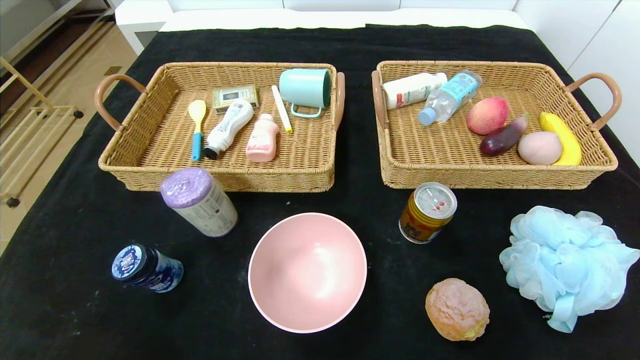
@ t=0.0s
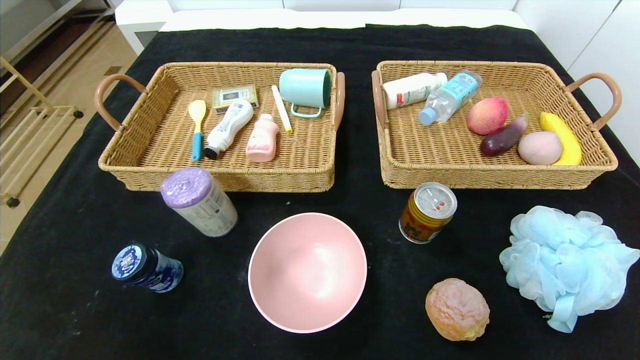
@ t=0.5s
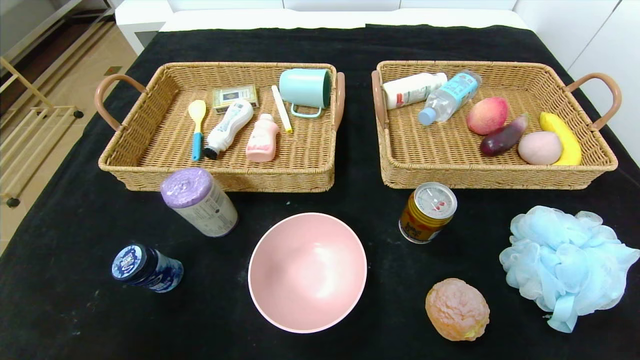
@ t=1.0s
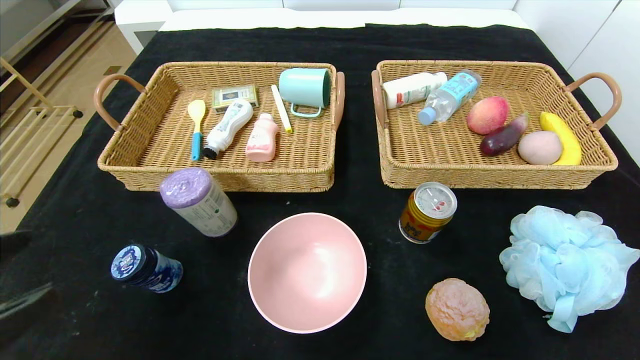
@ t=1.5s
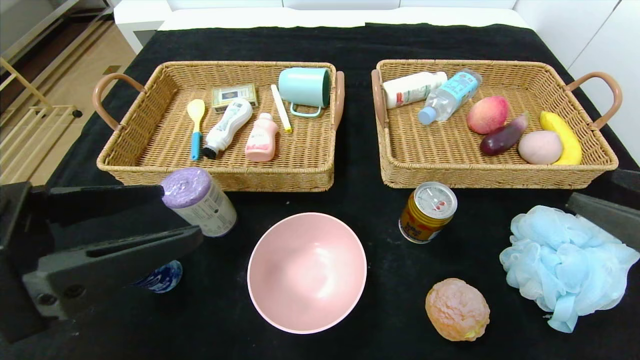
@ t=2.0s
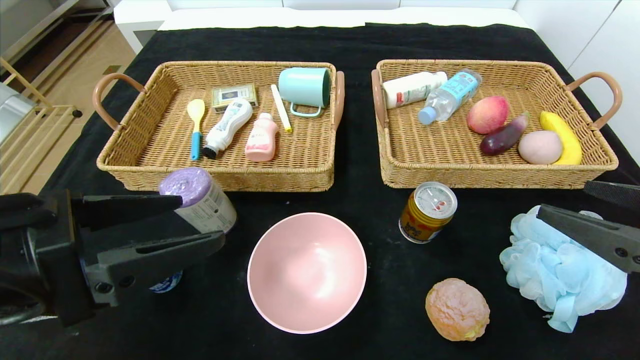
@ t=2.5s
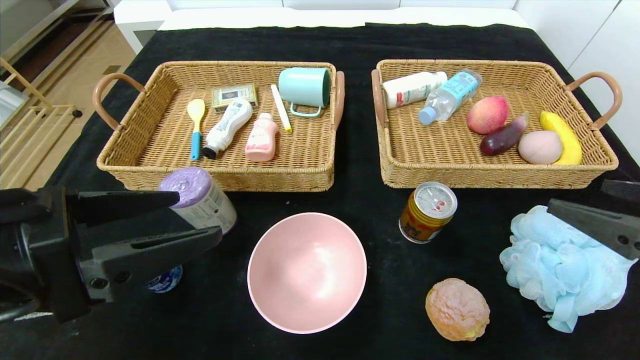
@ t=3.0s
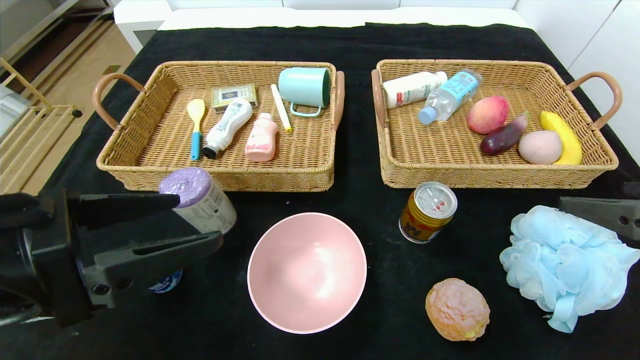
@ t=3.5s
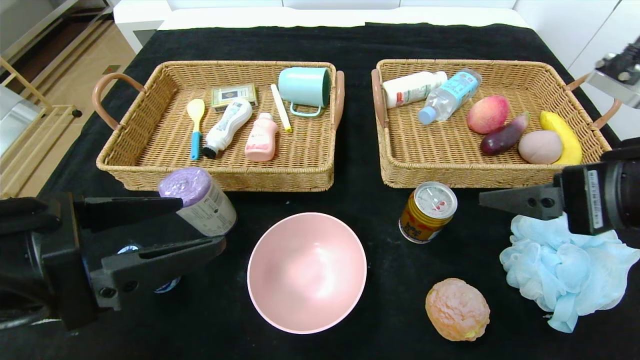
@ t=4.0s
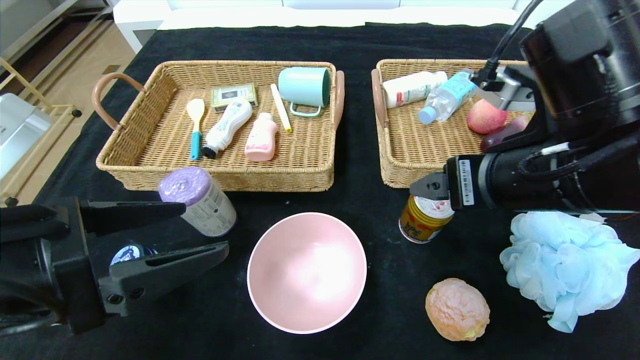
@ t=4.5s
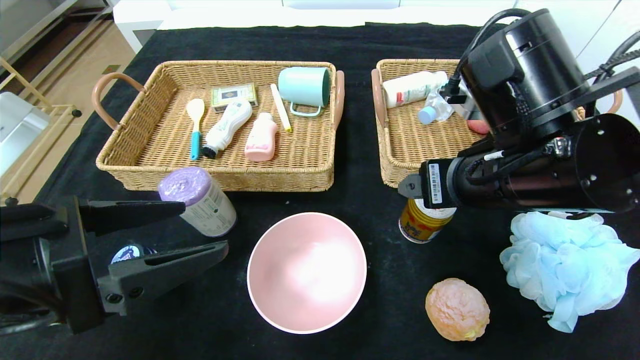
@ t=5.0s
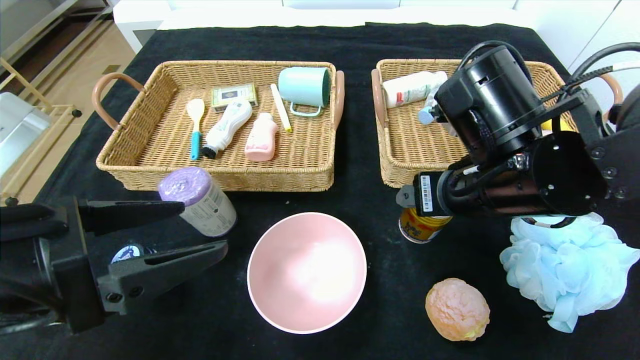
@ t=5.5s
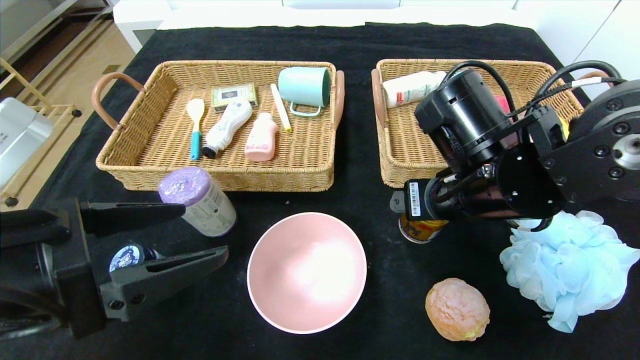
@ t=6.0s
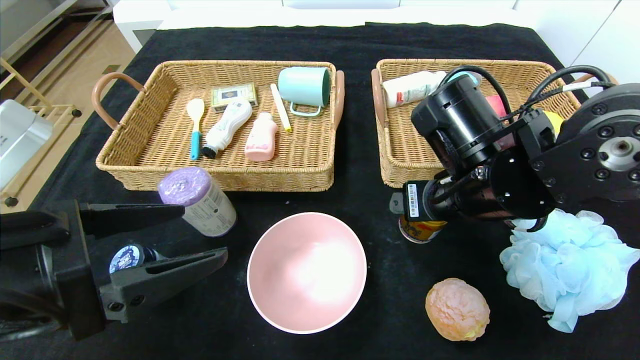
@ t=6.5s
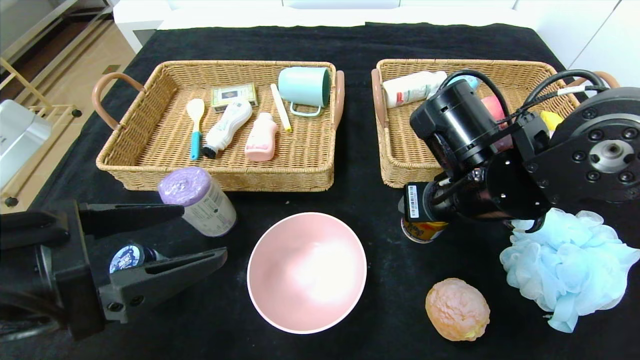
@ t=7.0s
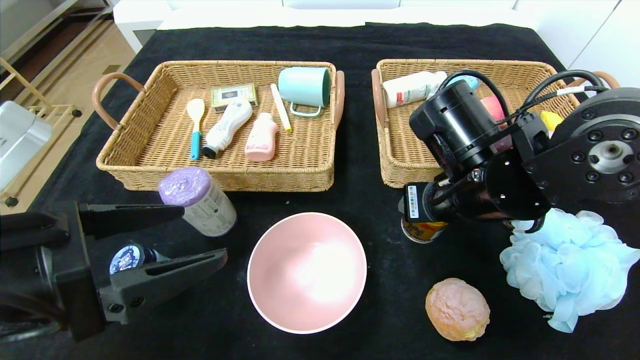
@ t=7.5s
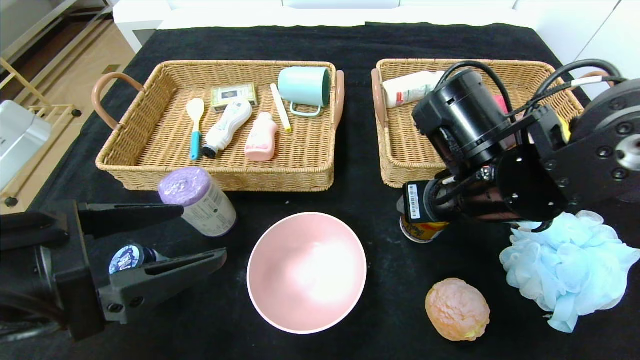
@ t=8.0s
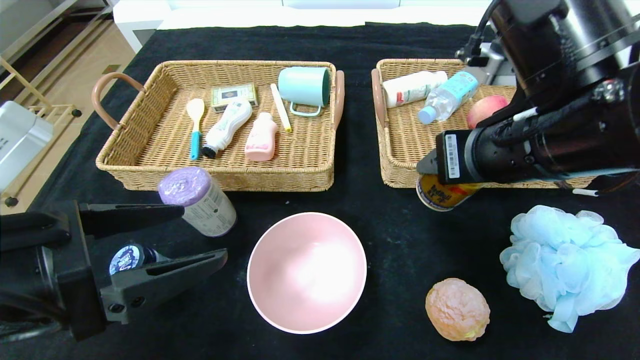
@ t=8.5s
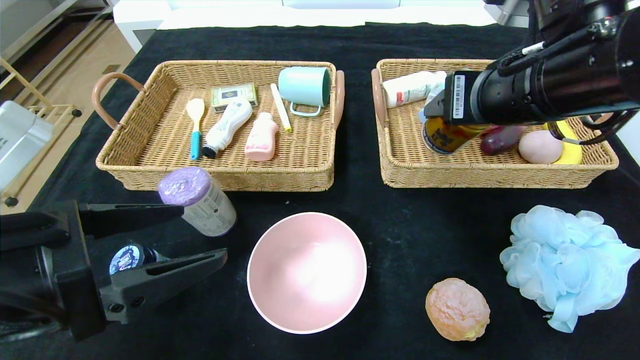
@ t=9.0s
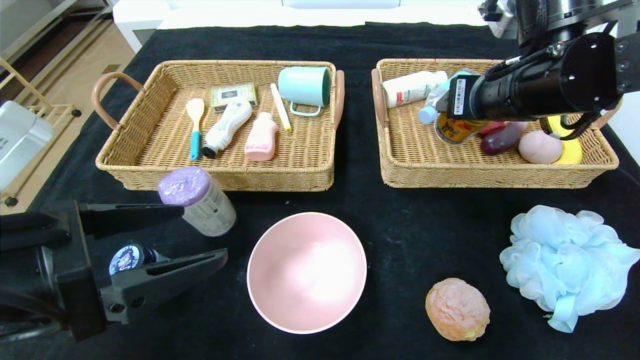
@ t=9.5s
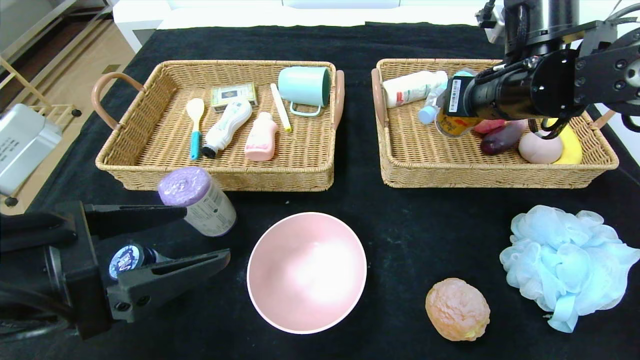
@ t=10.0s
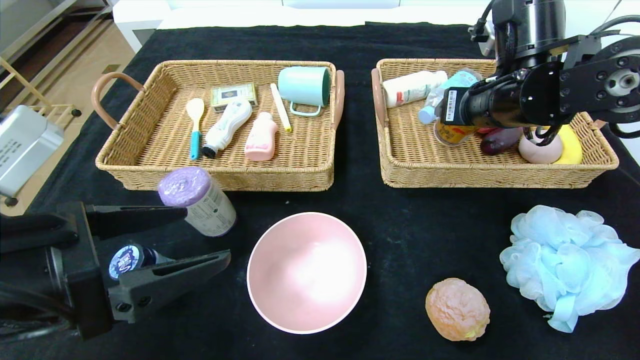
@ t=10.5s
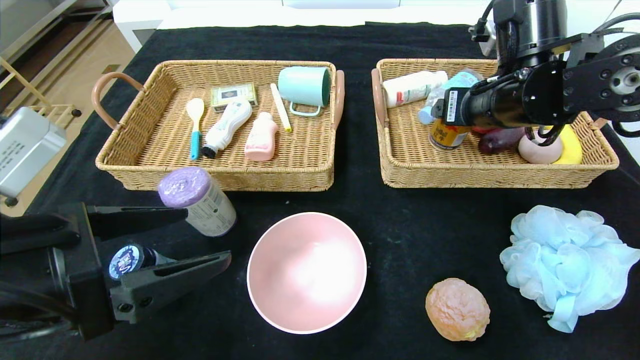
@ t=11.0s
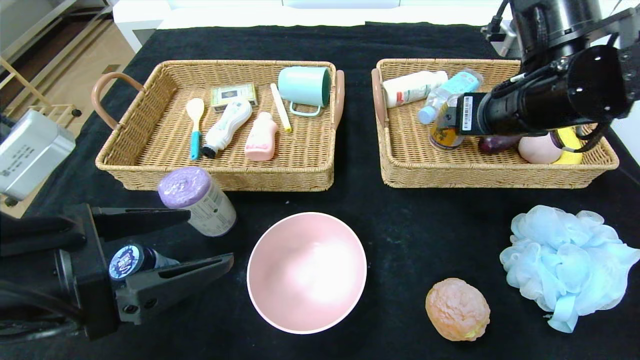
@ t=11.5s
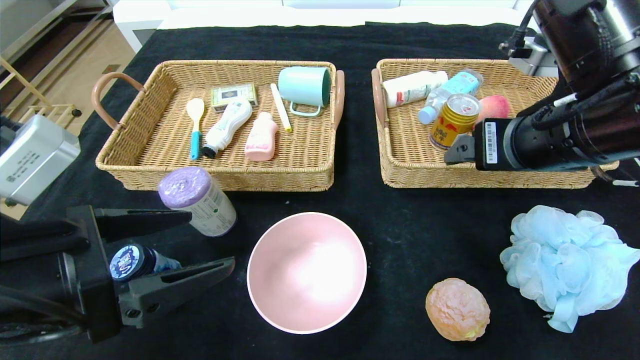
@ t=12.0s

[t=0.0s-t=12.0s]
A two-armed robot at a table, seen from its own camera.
Step, t=0.0s to t=10.5s: Grasp the Red Bull and put it in the right basket.
t=0.0s to t=2.0s: Both grippers travel together upward and forward, some 25 cm.
t=2.0s to t=4.0s: The right gripper is displaced to the left and forward by about 10 cm.
t=4.0s to t=6.0s: The right gripper is displaced to the left, forward and downward by approximately 15 cm.
t=6.0s to t=8.0s: The right gripper closes up.
t=8.0s to t=10.0s: The right gripper travels forward, upward and to the right by some 15 cm.
t=10.0s to t=12.0s: The right gripper moves backward, about 10 cm, and opens up.

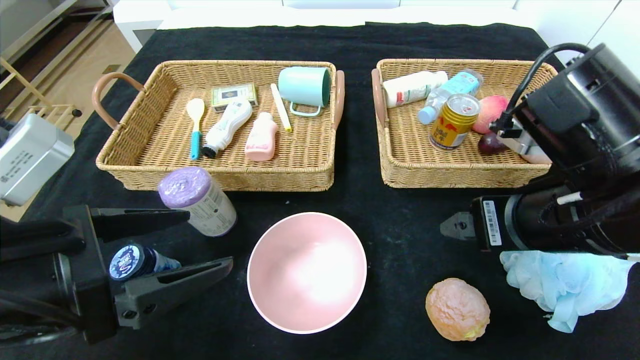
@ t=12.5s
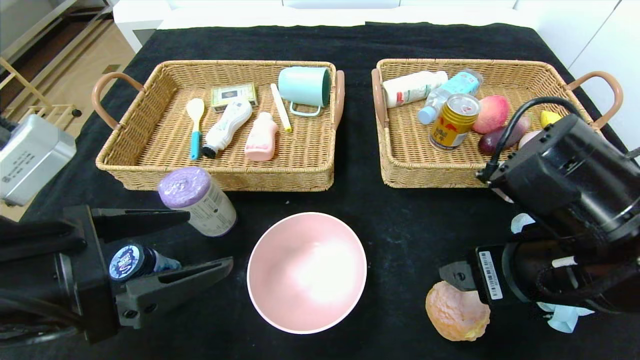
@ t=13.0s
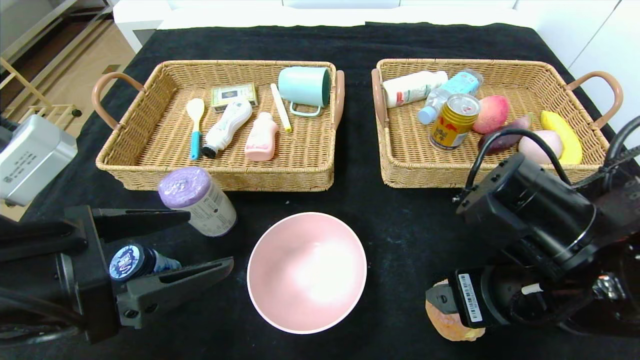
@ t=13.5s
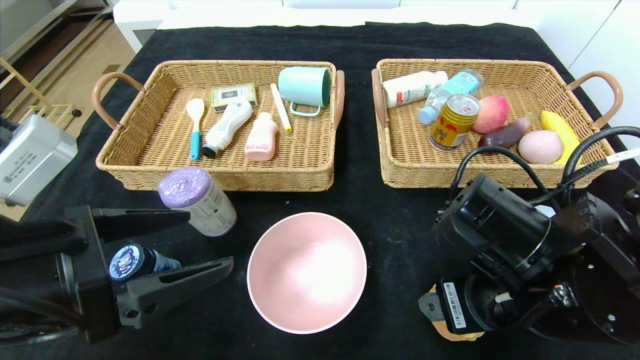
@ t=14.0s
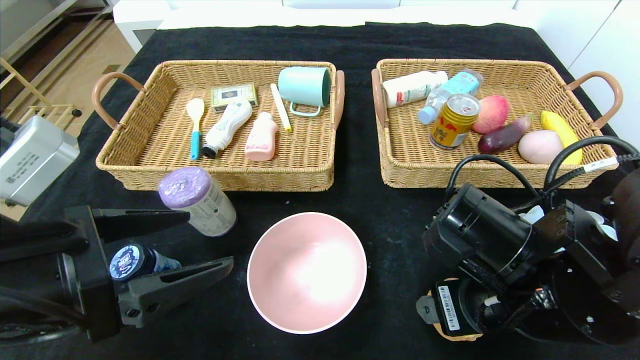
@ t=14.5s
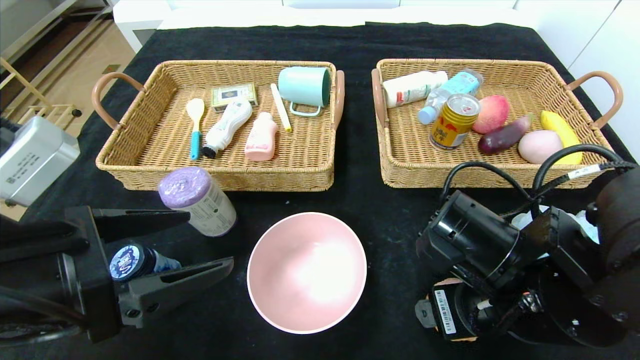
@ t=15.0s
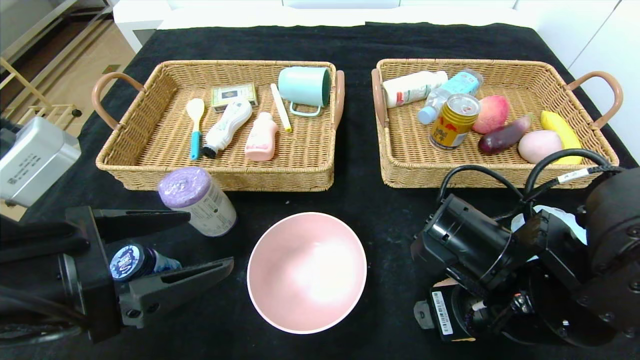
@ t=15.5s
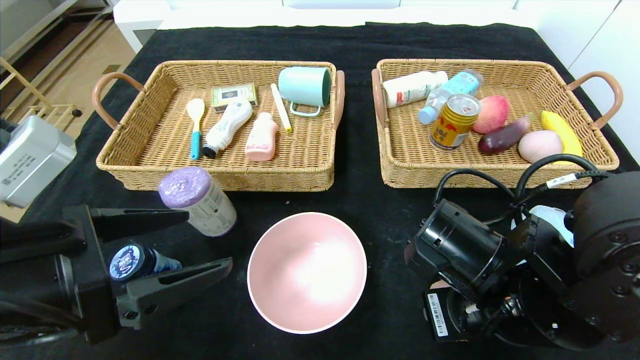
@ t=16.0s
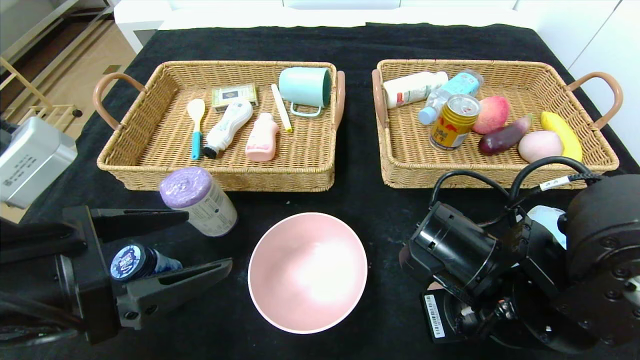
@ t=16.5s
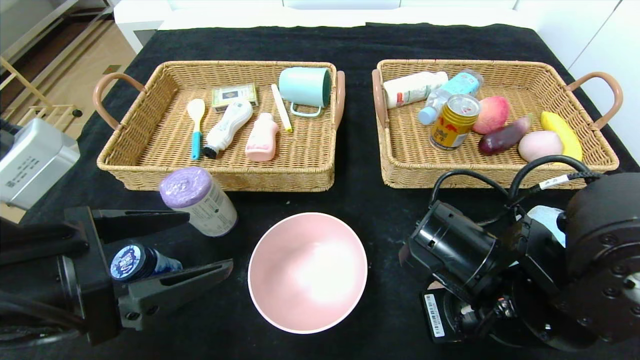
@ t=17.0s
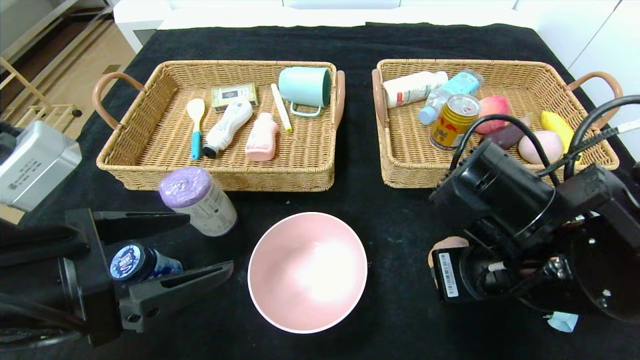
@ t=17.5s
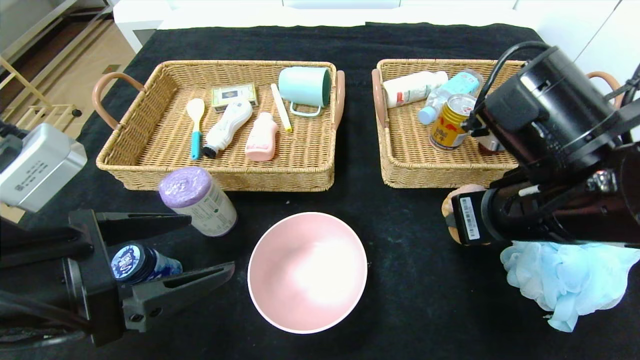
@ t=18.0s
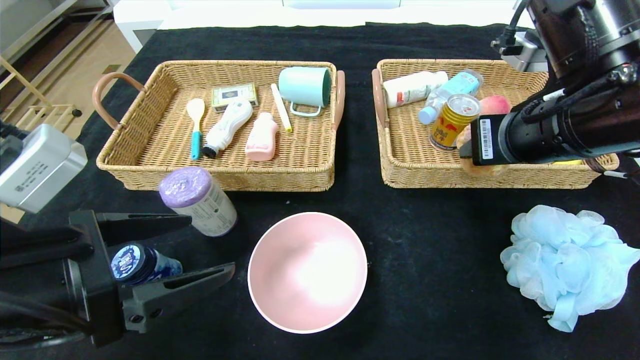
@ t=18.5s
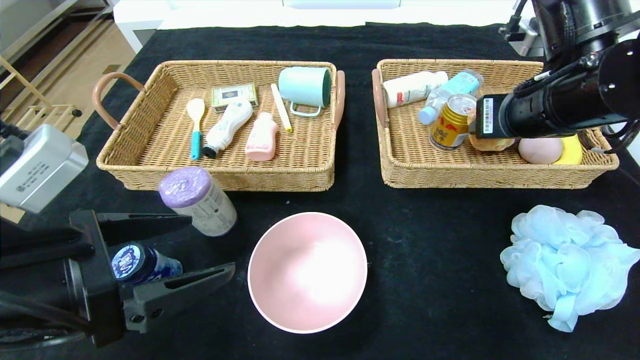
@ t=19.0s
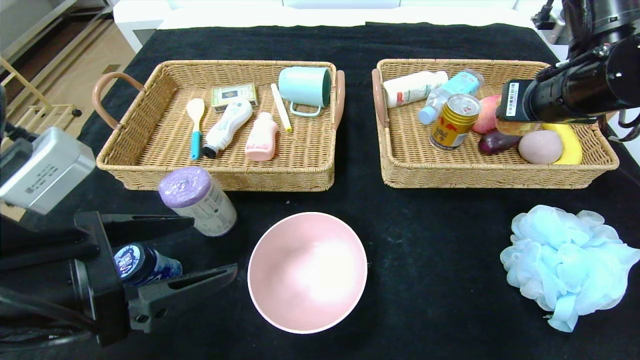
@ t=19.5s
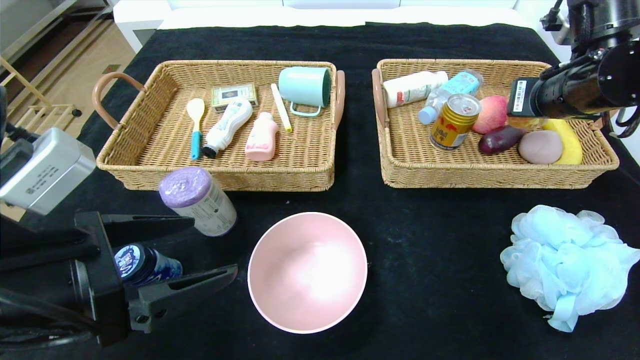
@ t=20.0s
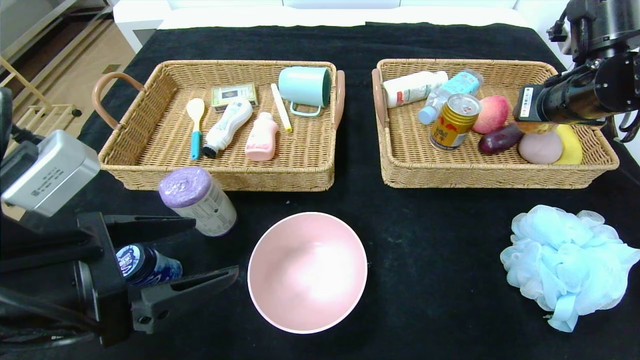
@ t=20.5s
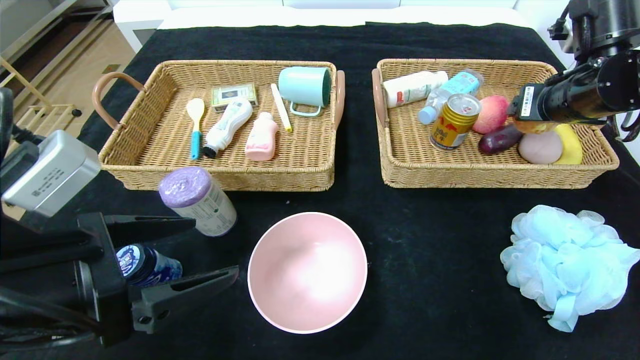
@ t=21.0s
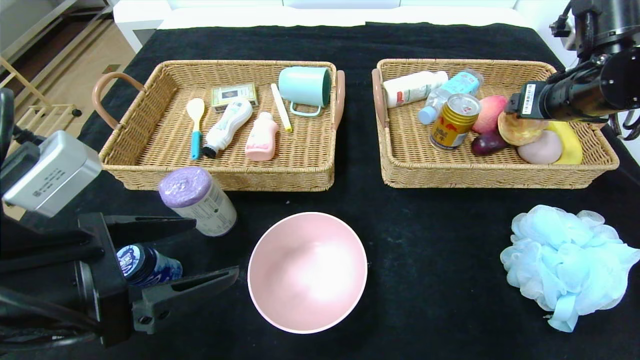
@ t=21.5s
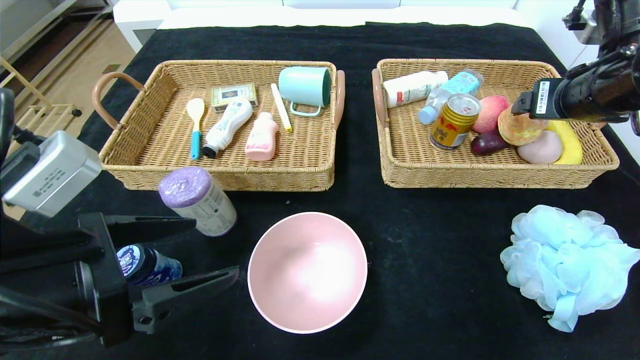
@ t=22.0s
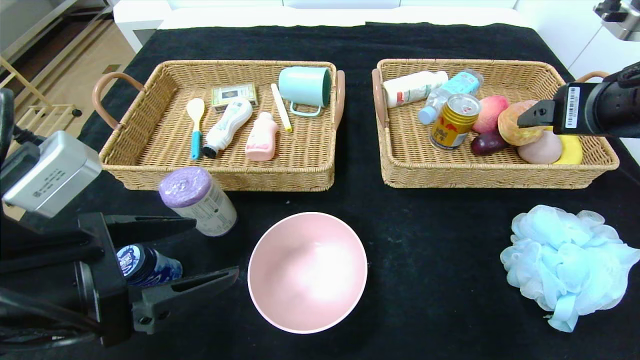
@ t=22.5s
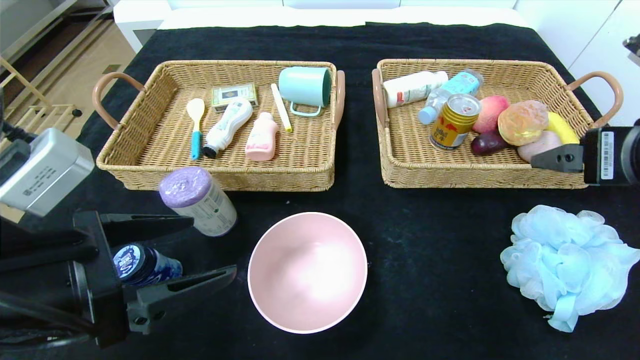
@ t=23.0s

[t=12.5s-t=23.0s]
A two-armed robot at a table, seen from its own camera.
Step, t=12.5s to t=21.0s: Grasp the round bread and put it in the right basket.
t=12.5s to t=14.5s: The right gripper shifts about 5 cm downward.
t=14.5s to t=16.5s: The right gripper closes its fingers.
t=16.5s to t=19.0s: The right gripper shifts roughly 20 cm upward, forward and to the right.
t=19.0s to t=21.0s: The right gripper moves to the right and forward, approximately 10 cm, and opens its fingers.
t=21.0s to t=23.0s: The right gripper goes about 15 cm backward.
